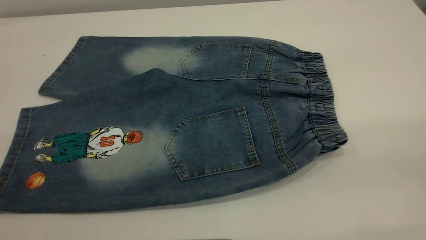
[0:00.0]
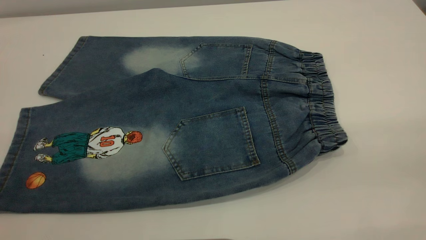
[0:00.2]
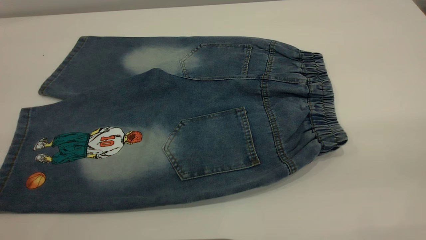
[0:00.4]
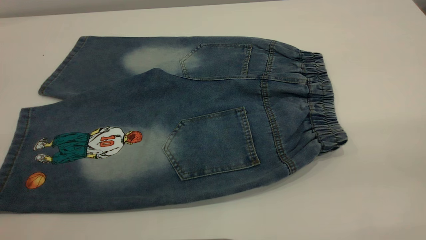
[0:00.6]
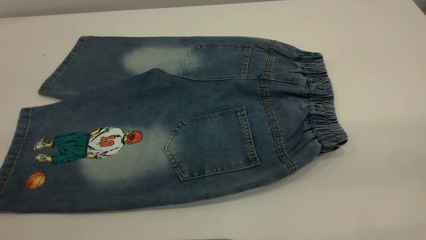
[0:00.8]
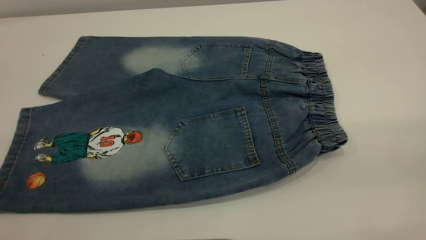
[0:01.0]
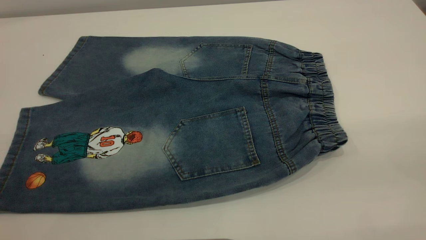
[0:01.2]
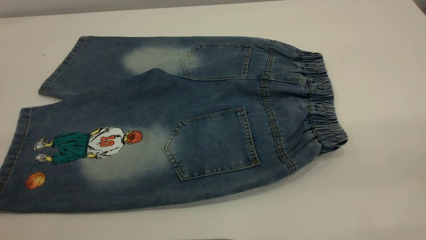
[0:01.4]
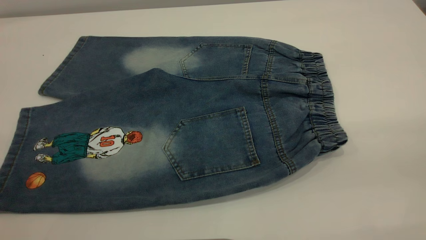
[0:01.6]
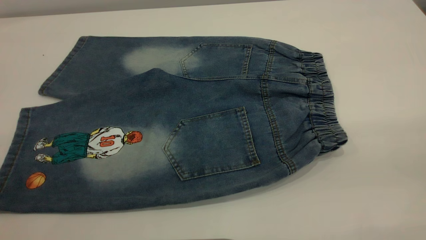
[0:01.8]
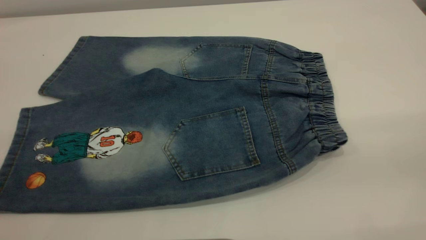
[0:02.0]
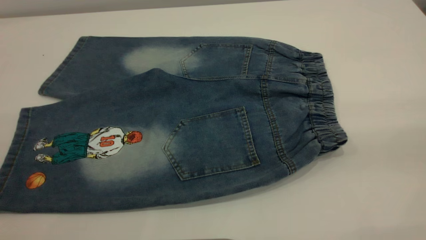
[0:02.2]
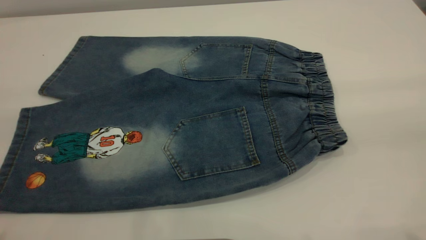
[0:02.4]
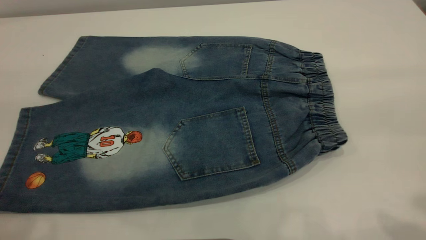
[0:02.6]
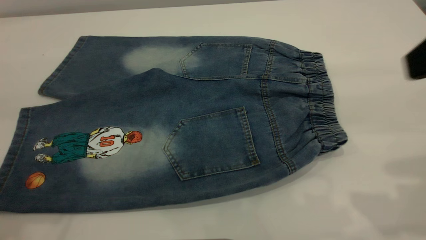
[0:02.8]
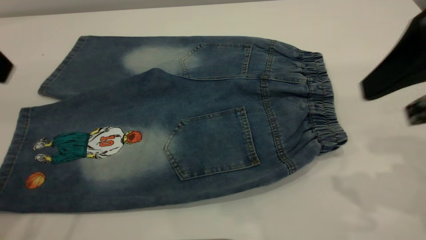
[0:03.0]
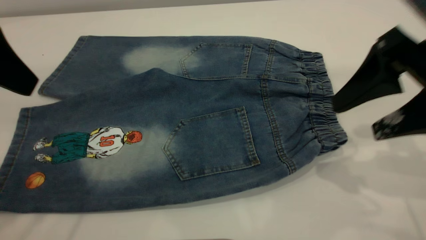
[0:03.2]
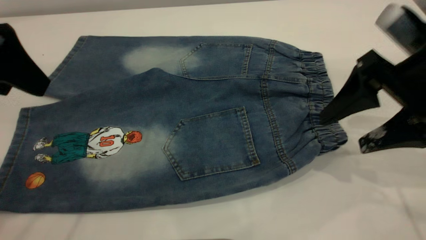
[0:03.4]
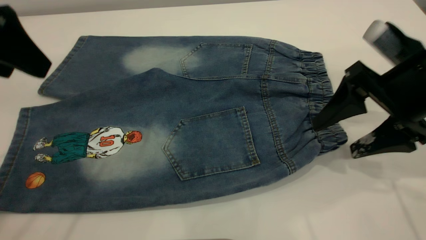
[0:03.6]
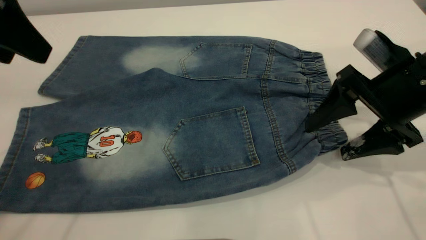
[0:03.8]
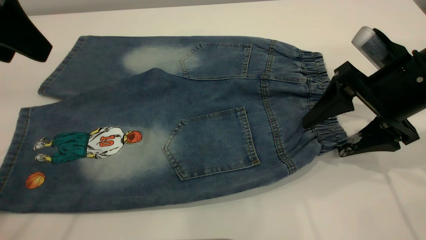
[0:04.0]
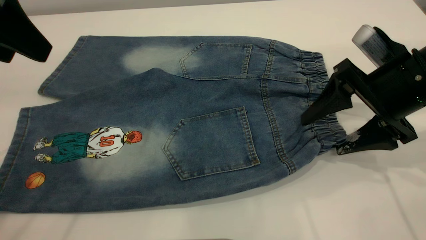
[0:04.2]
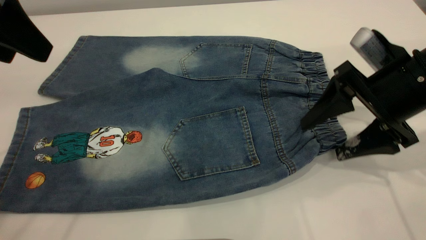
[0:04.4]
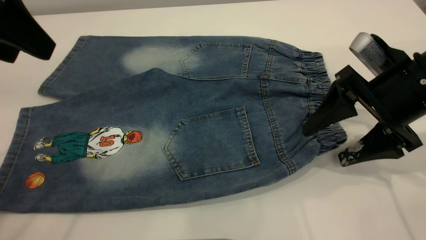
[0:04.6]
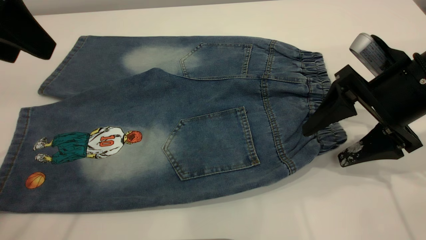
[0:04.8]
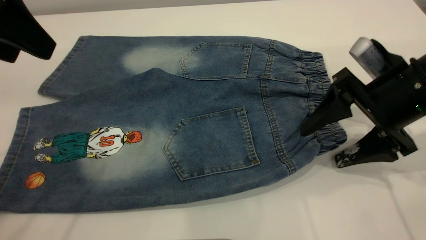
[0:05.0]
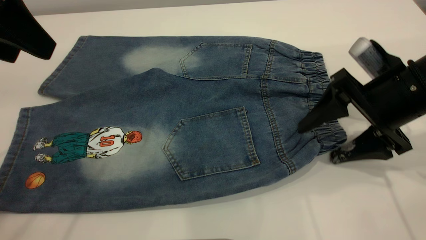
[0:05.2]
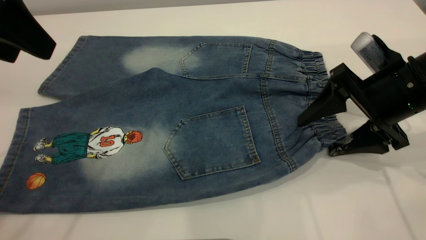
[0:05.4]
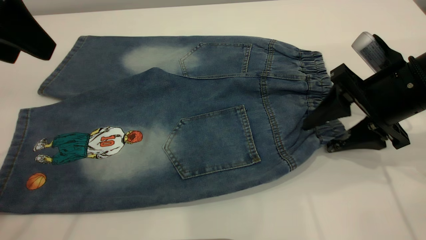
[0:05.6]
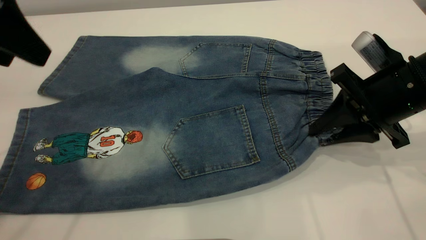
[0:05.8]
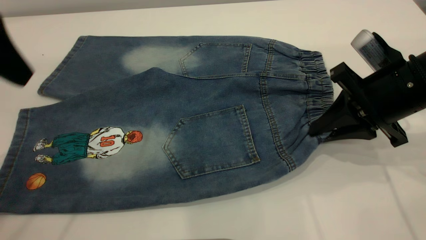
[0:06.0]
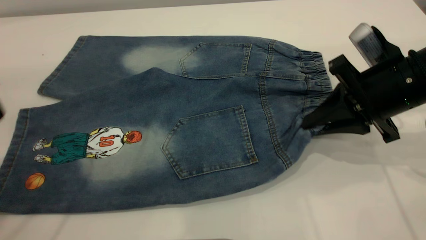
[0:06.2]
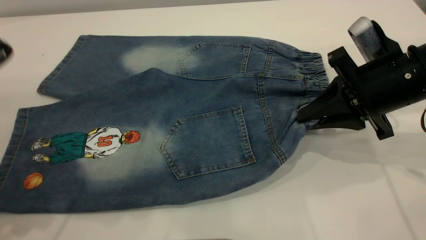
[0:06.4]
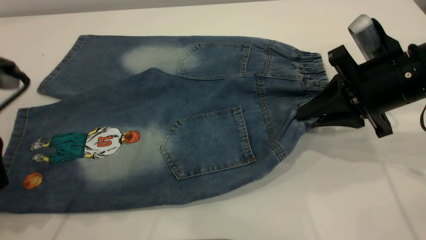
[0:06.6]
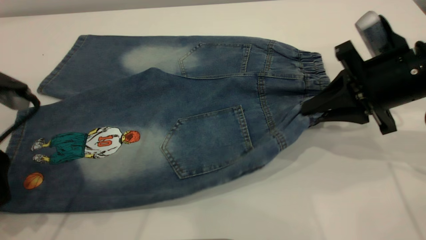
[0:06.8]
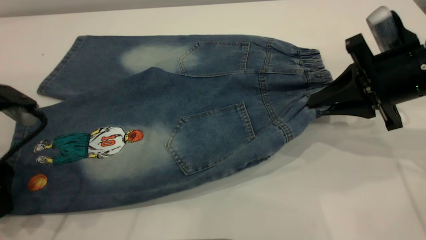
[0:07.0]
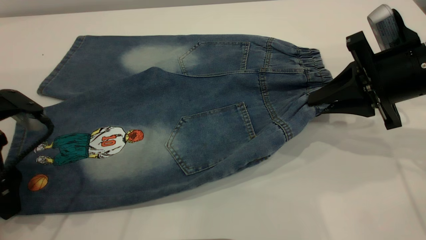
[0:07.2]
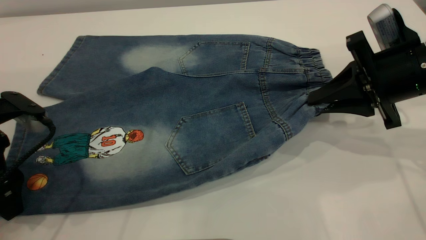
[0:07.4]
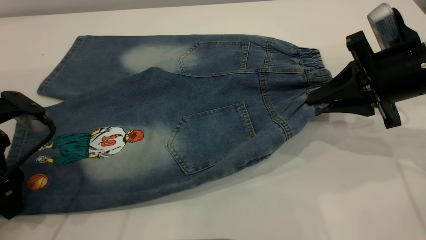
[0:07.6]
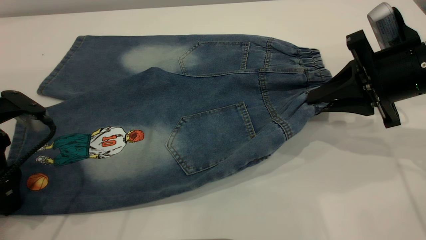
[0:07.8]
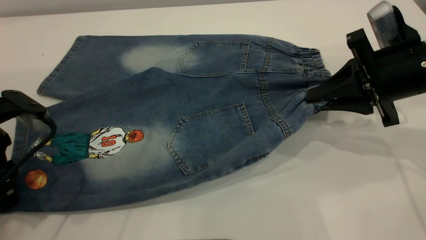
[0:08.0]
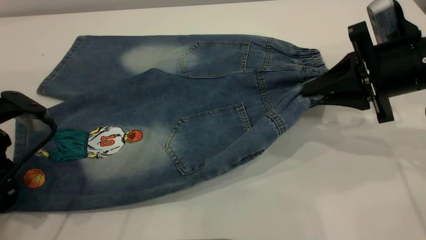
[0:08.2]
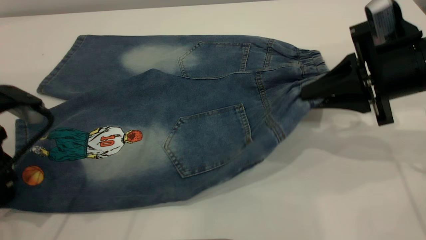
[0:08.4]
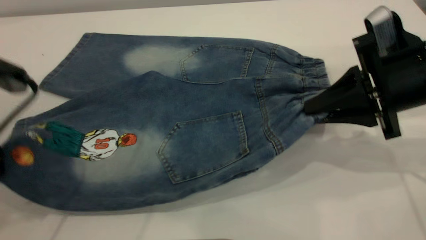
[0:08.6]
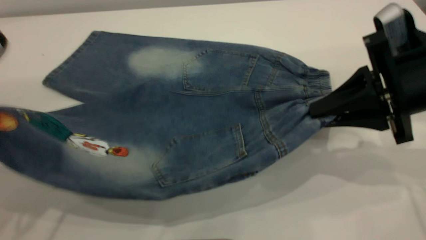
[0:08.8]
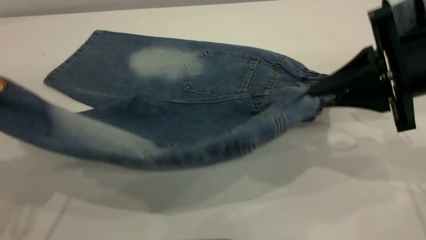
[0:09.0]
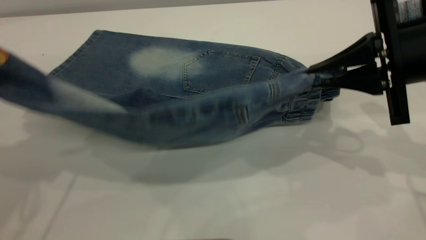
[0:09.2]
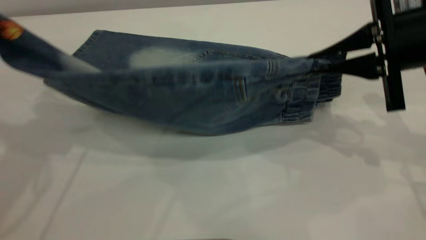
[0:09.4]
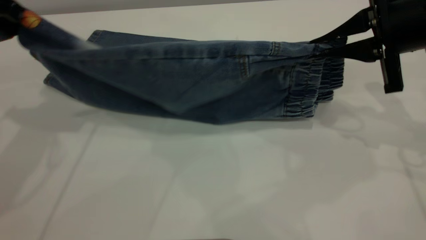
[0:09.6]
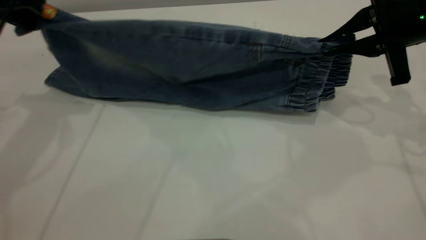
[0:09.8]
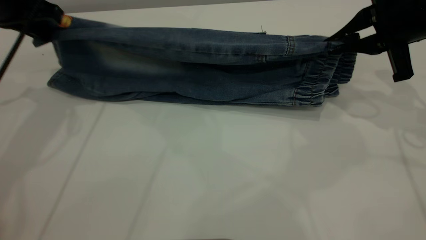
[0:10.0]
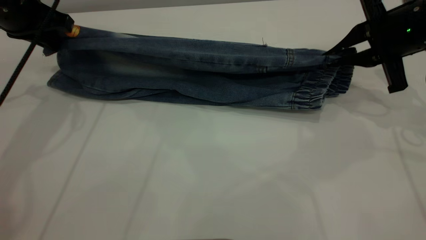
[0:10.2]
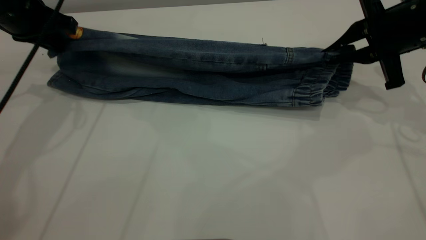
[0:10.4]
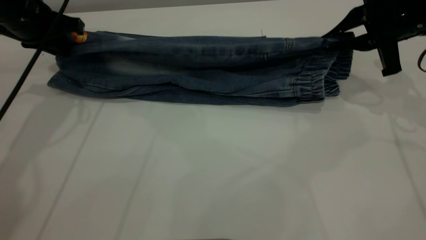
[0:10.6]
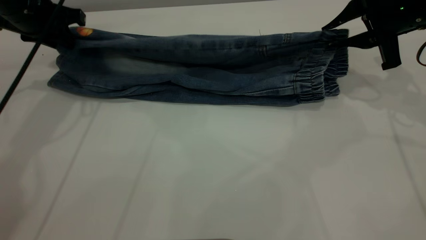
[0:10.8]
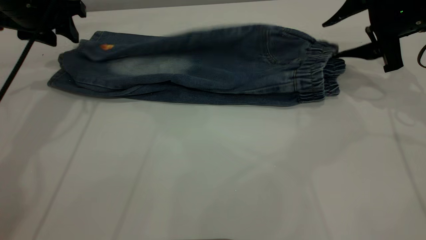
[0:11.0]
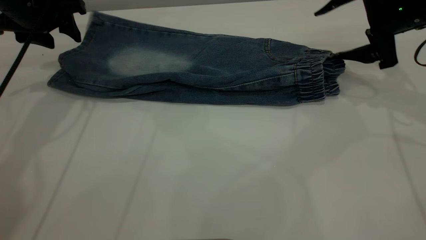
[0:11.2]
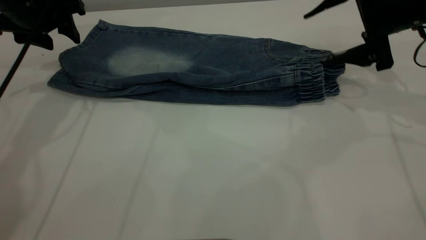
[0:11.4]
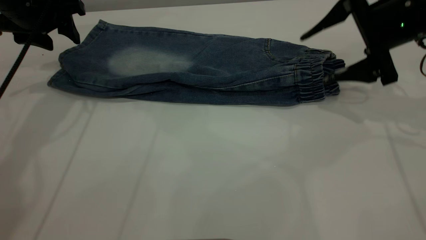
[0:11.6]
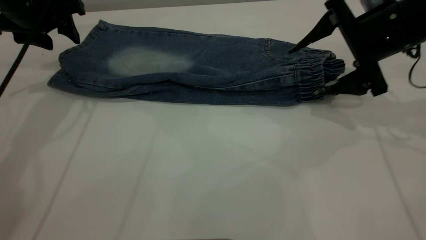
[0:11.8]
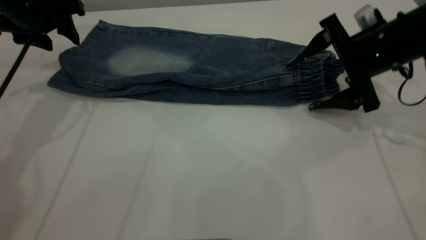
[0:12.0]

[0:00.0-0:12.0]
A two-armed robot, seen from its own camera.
Step, 0:00.0 to 0:11.4: Fold the bottom of the pants upward.
0:00.0 to 0:01.6: Both grippers stay put.
0:01.6 to 0:03.0: The right gripper is displaced forward and downward by about 25 cm.
0:03.0 to 0:04.4: The right gripper travels downward and forward by about 15 cm.
0:04.4 to 0:06.0: The right gripper closes its fingers.
0:06.0 to 0:07.6: The left gripper is displaced downward by approximately 15 cm.
0:07.6 to 0:09.0: The left gripper travels upward by roughly 15 cm, and closes; the right gripper shifts by approximately 5 cm.
0:09.0 to 0:10.4: The right gripper moves forward, about 10 cm, while the left gripper goes about 20 cm forward and downward.
0:10.4 to 0:12.0: The left gripper opens up, while the right gripper opens up.

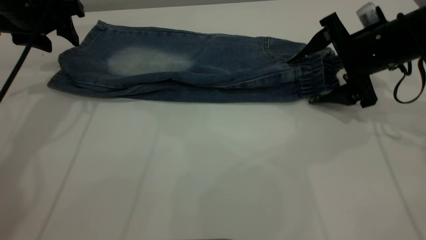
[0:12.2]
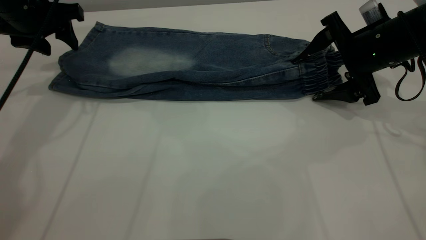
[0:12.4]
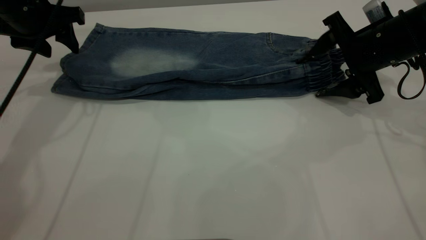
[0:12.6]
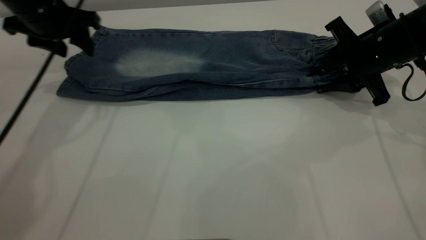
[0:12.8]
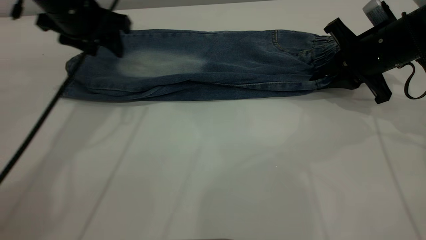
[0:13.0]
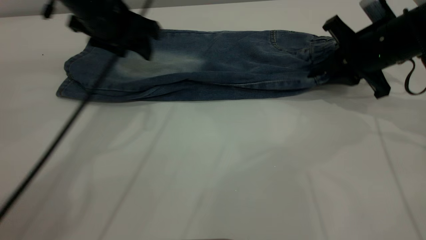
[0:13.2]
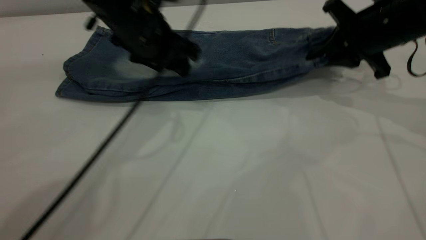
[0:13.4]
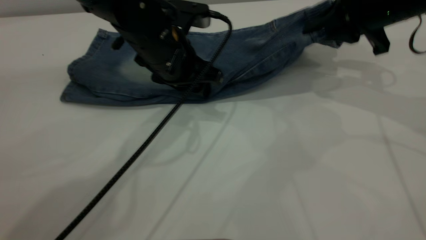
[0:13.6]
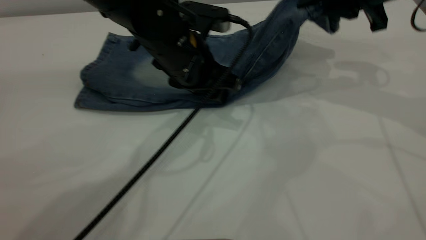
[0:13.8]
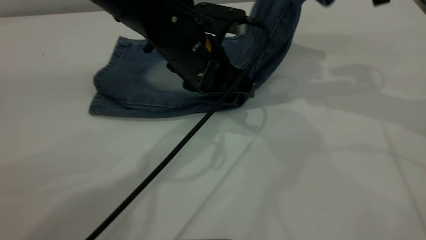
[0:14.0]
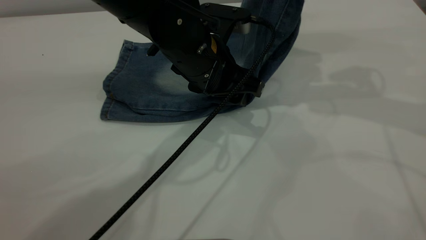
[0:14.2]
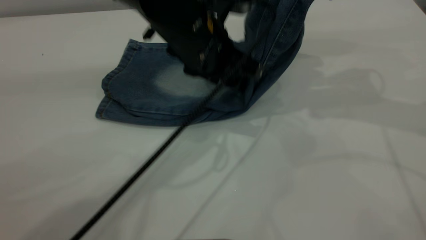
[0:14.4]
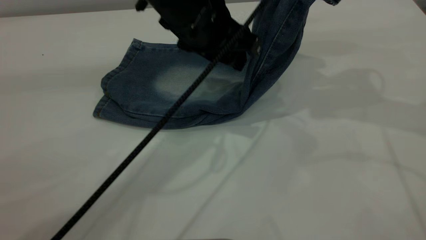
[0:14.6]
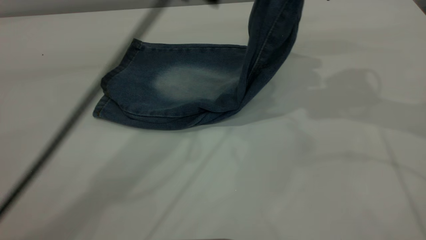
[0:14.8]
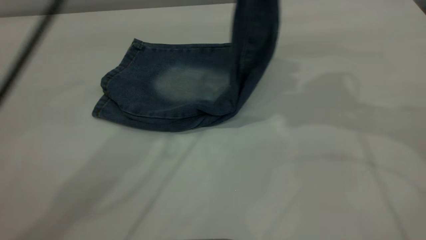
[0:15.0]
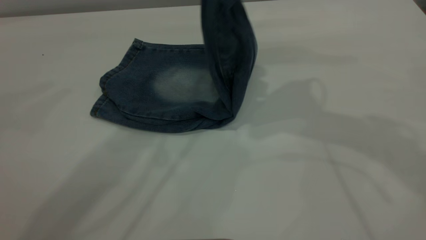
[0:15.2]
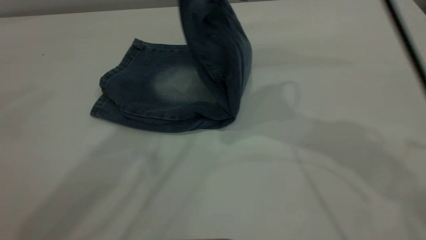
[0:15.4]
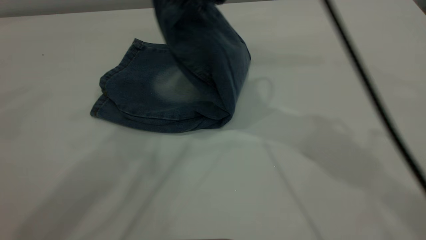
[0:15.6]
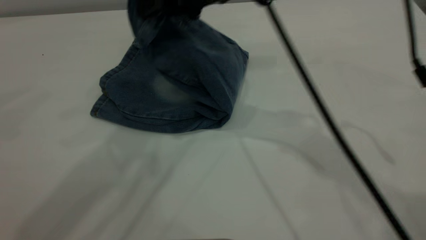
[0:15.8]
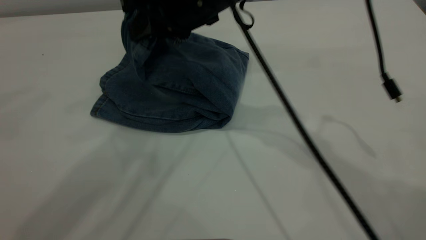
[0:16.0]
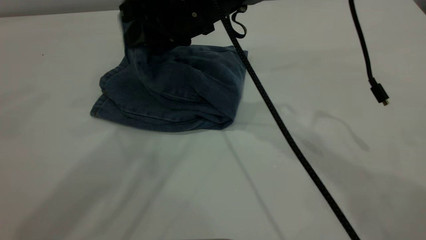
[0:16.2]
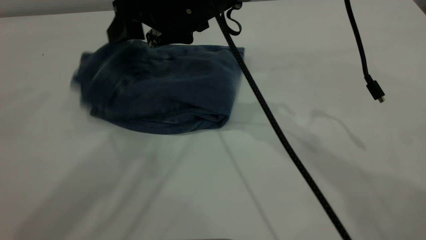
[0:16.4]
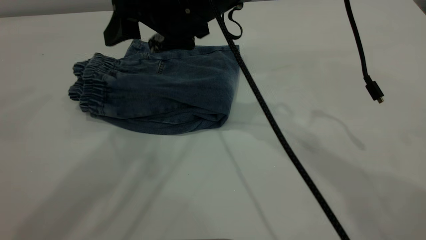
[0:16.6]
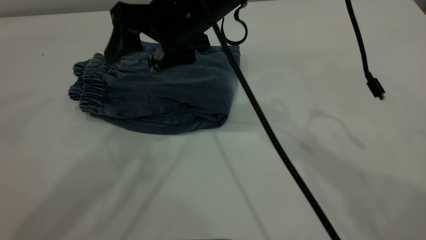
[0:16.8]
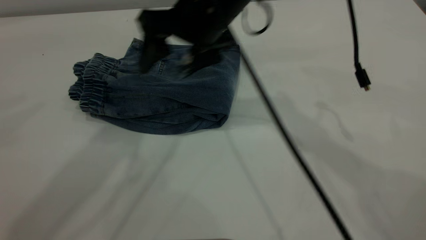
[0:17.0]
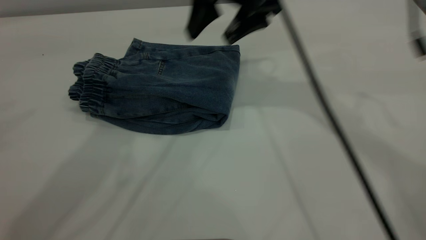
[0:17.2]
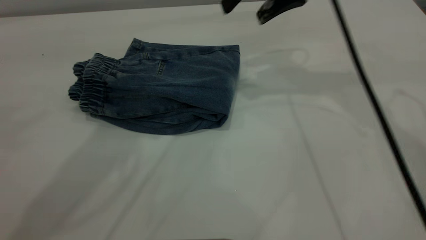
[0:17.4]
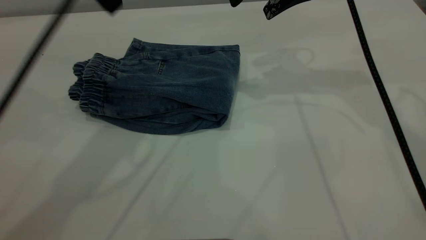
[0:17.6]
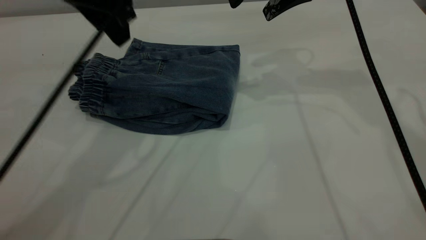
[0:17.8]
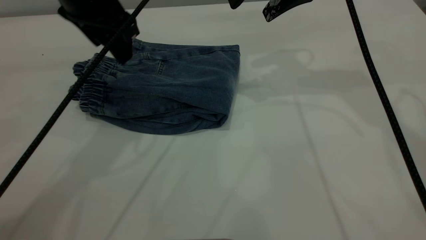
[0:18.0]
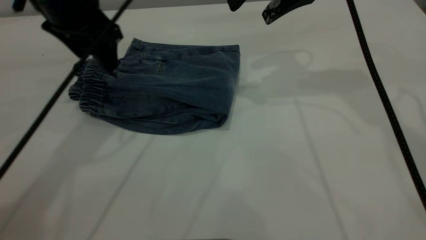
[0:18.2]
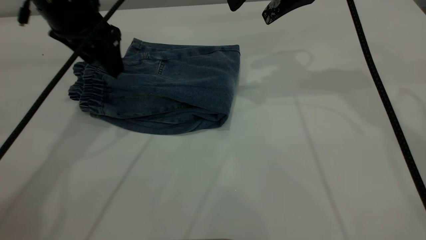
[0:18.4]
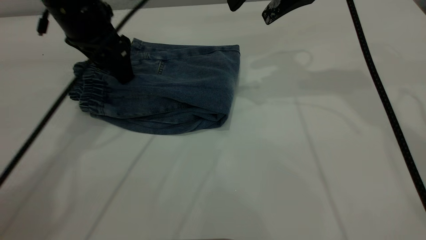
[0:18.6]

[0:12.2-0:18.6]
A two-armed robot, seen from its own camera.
Step, 0:12.2 to 0:17.4: Fold your pants from right to left.
0:12.2 to 0:13.8: The left gripper moves to the right, approximately 25 cm. The right gripper heads upward, covering roughly 10 cm, and closes its fingers.
0:13.8 to 0:15.4: The left gripper shifts roughly 30 cm upward. The right gripper moves to the left, some 15 cm.
0:15.4 to 0:17.0: The right gripper is displaced downward, to the left and forward by some 10 cm, and opens its fingers.
0:17.0 to 0:18.6: The right gripper heads to the right, covering some 10 cm. The left gripper shifts approximately 20 cm downward.
